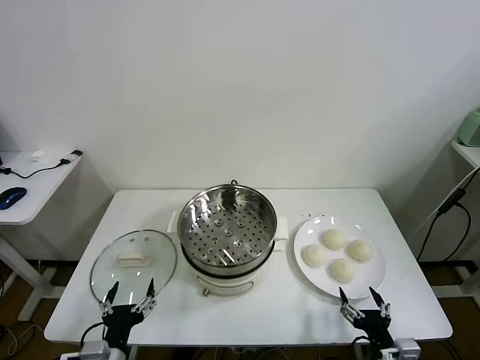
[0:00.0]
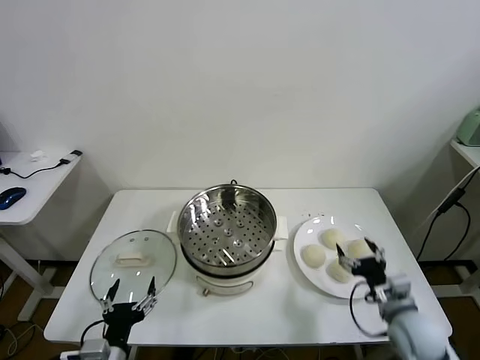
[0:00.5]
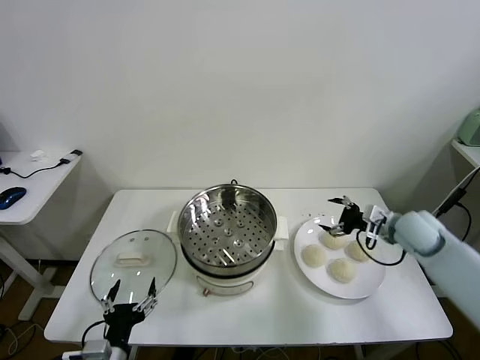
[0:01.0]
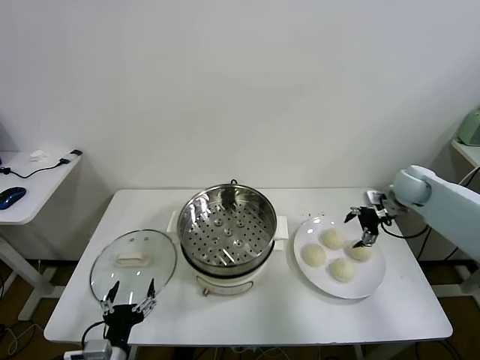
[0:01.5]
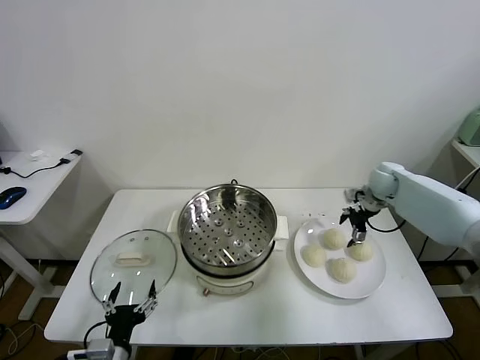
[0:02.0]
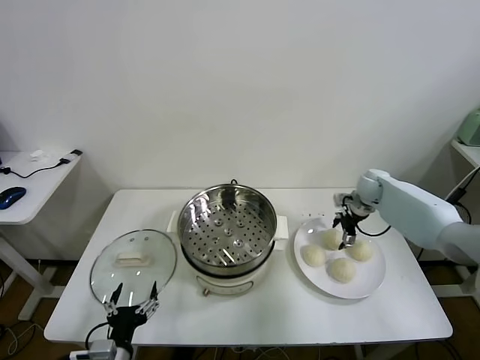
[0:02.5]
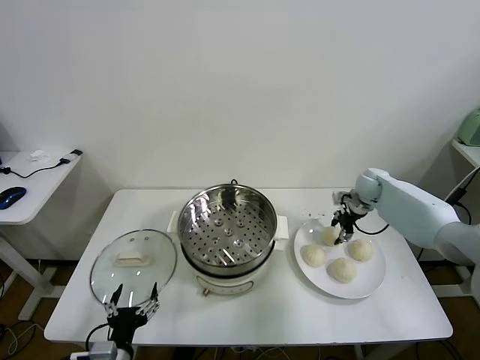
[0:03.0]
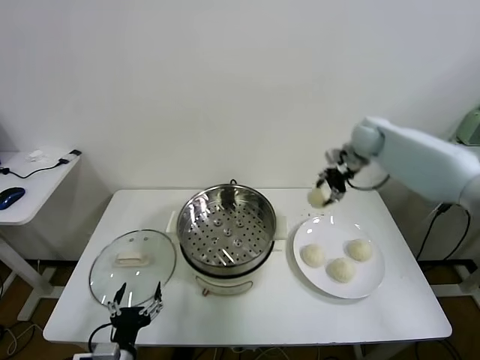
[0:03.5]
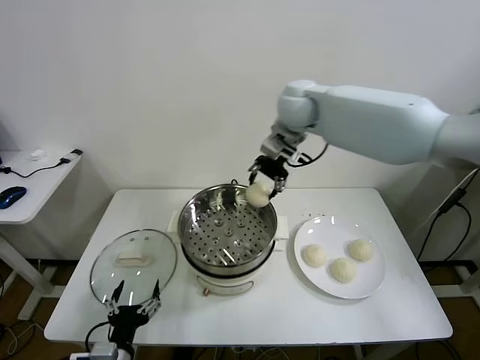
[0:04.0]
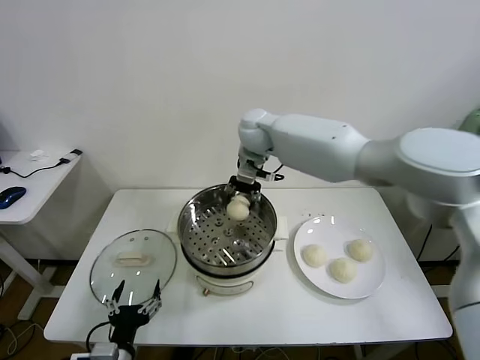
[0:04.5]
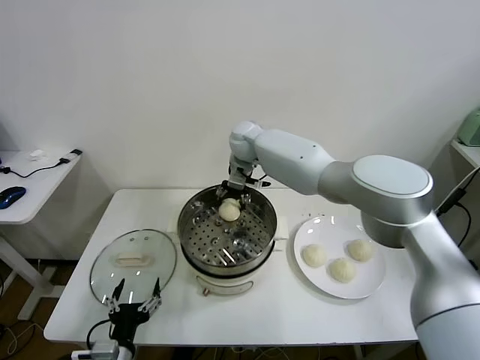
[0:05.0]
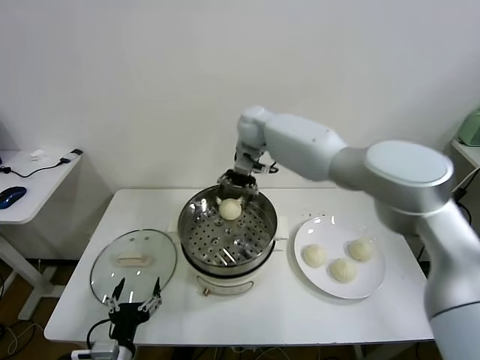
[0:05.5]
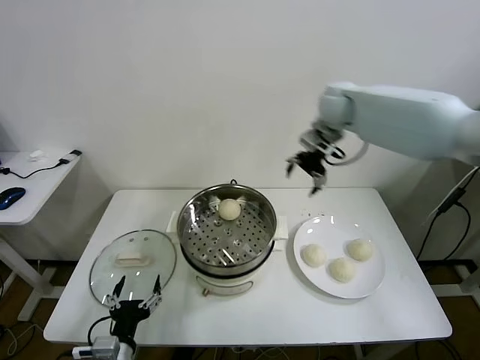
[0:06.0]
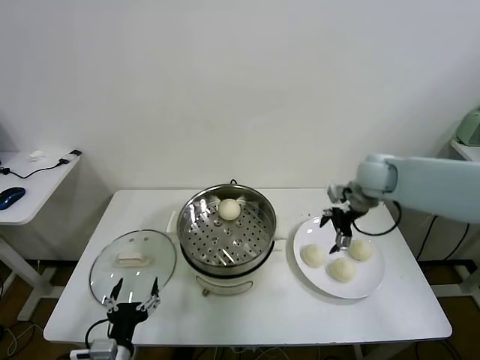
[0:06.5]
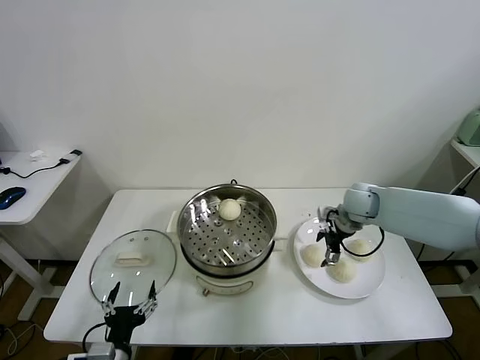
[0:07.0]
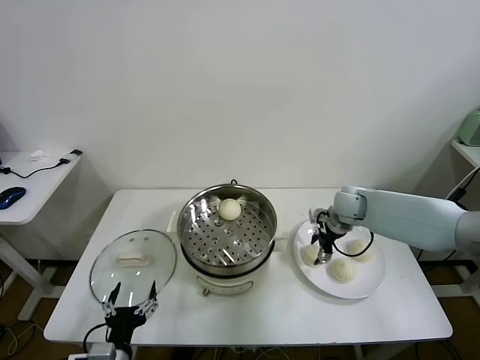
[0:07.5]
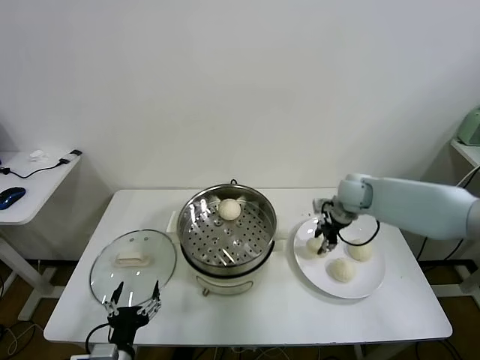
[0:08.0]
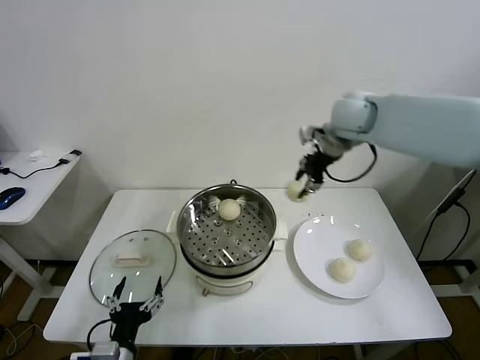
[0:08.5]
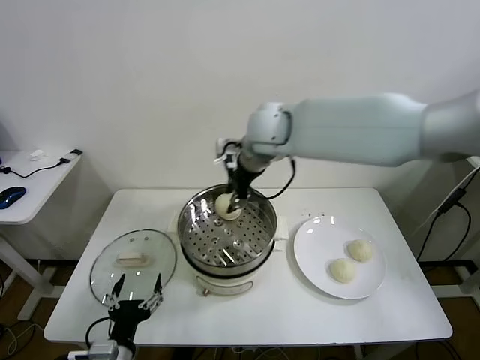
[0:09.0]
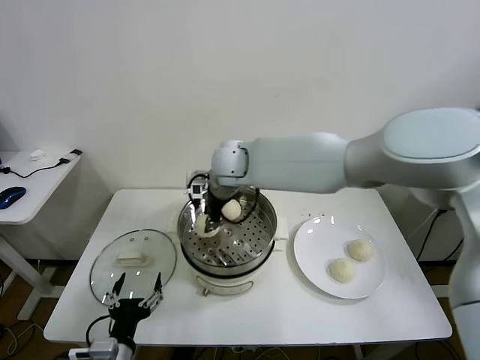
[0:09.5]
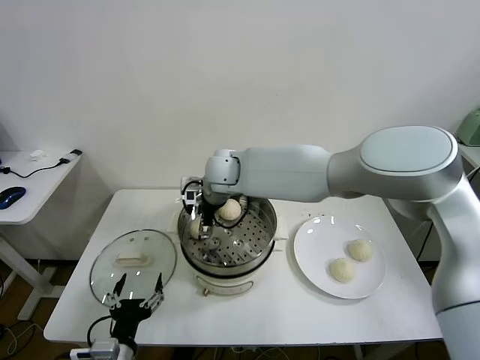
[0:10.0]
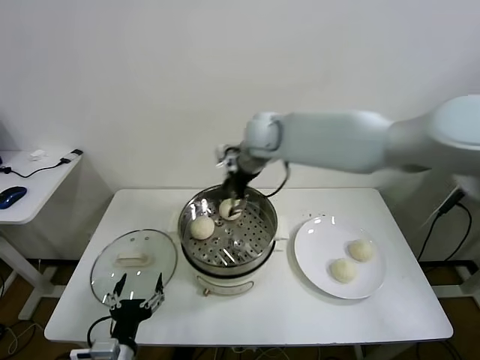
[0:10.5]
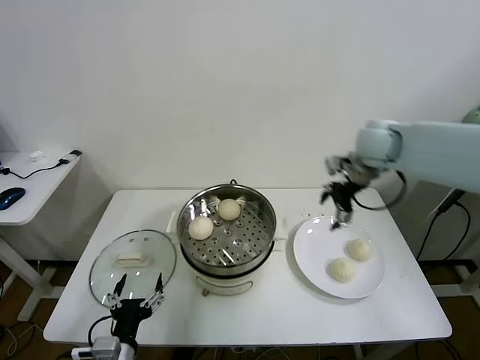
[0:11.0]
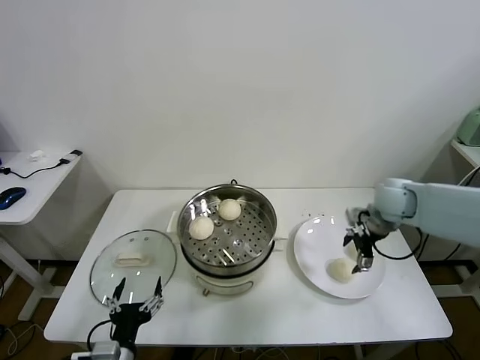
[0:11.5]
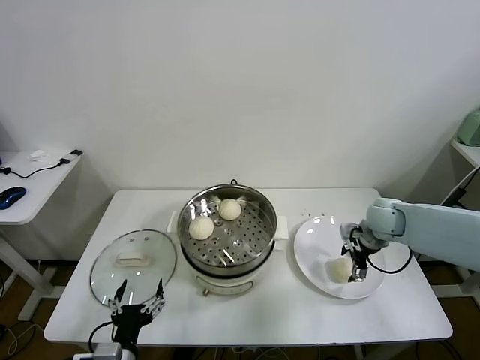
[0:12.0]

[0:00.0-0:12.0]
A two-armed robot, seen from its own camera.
Task of the whole recording: take steamed baozi put them in steamer.
Step, 0:00.0 to 0:02.5: Grasp the baozi in the plate with right gripper.
Step, 0:03.0 to 0:05.0: Place the baozi on the steamer with right gripper.
Step, 0:05.5 to 0:07.5: Grasp the baozi in the plate with right gripper.
Step, 0:08.0 to 0:09.5: Place the baozi on the steamer with right gripper.
0:02.0 to 0:04.0: The right gripper goes some 35 cm to the left and upward, and closes up.
0:04.0 to 0:06.0: The right gripper moves to the right, some 15 cm, and opens.
0:06.0 to 0:08.0: The right gripper shifts roughly 15 cm downward, and closes its fingers.
0:08.0 to 0:10.0: The right gripper heads to the left, covering approximately 30 cm, and opens its fingers.
0:10.0 to 0:12.0: The right gripper shifts some 40 cm to the right.

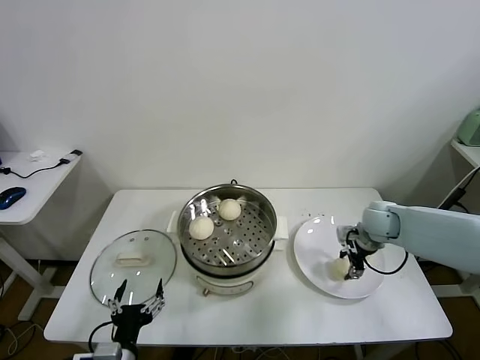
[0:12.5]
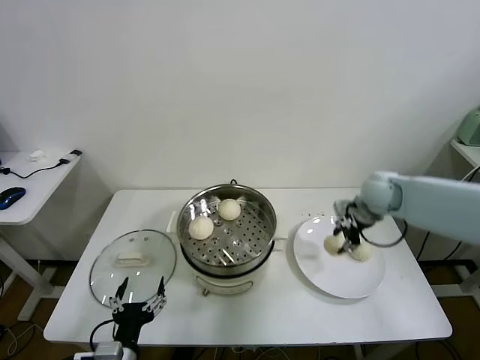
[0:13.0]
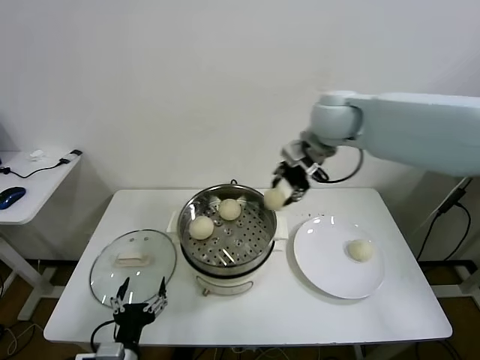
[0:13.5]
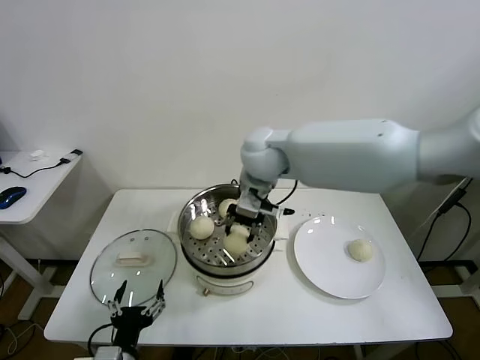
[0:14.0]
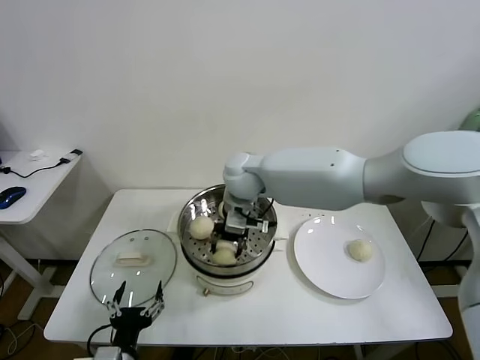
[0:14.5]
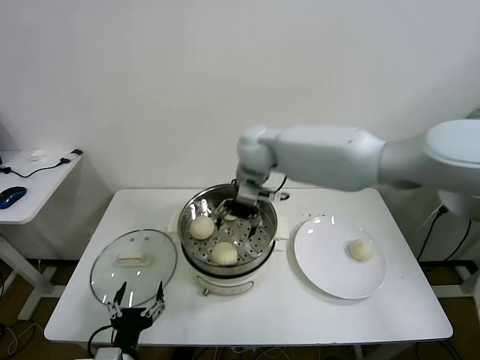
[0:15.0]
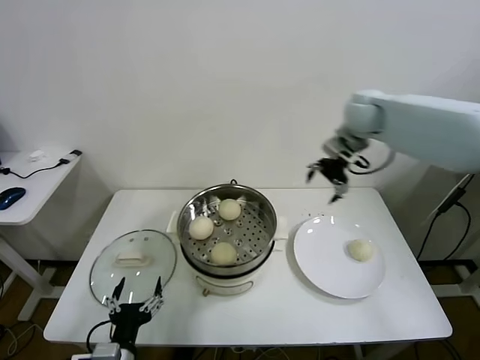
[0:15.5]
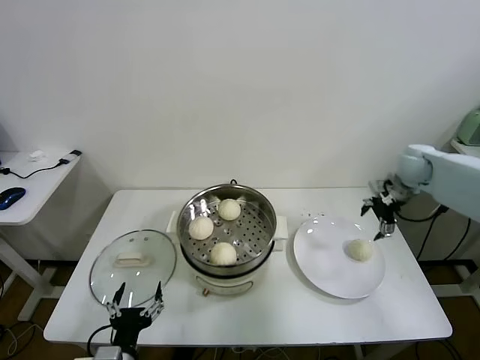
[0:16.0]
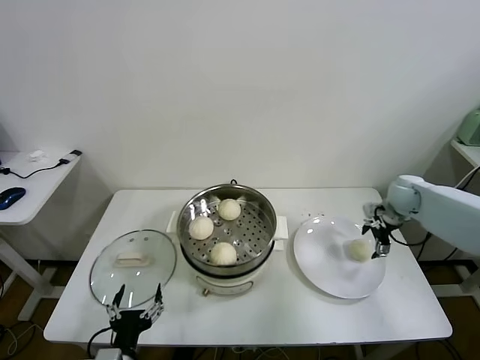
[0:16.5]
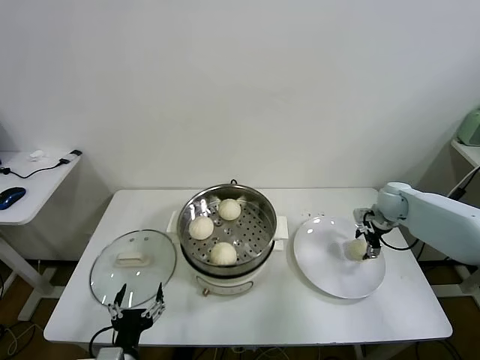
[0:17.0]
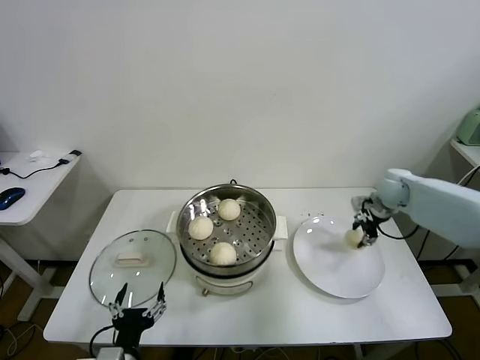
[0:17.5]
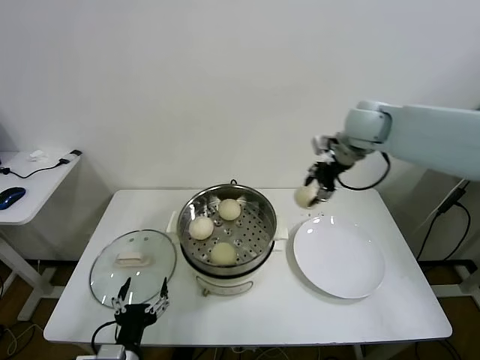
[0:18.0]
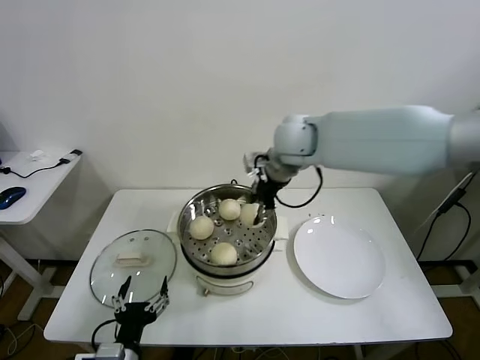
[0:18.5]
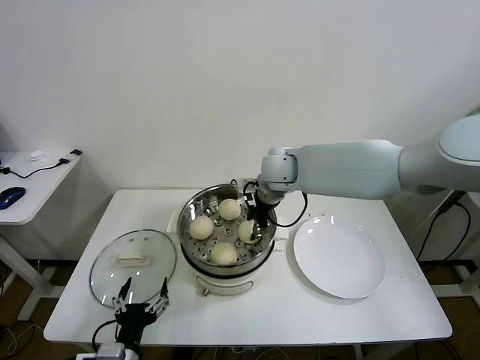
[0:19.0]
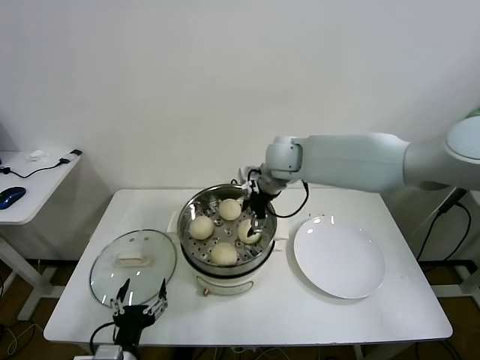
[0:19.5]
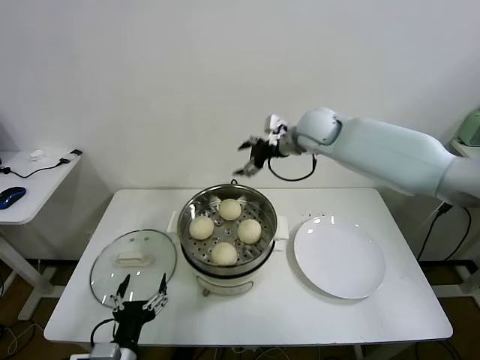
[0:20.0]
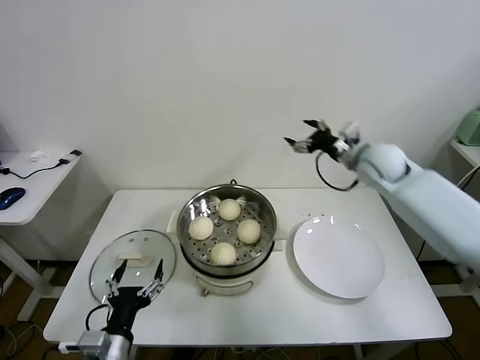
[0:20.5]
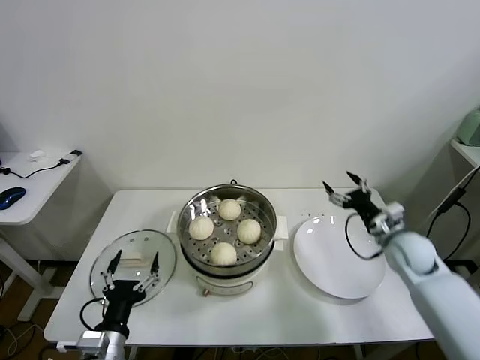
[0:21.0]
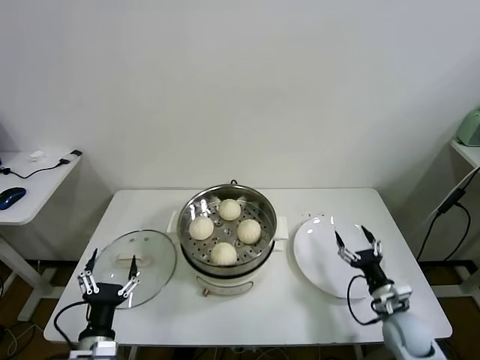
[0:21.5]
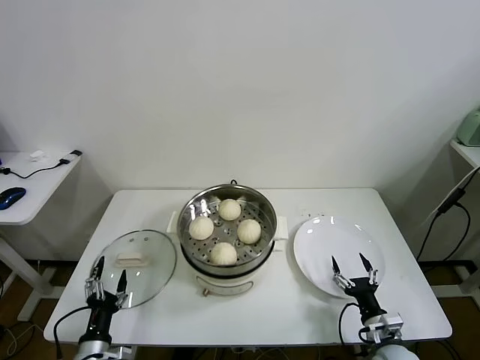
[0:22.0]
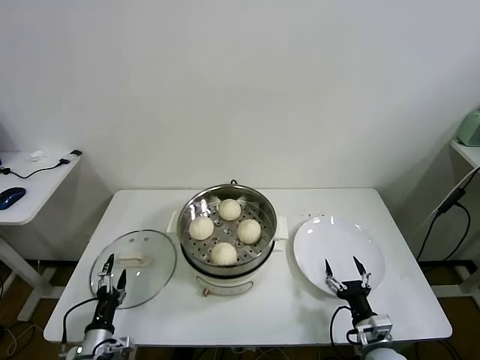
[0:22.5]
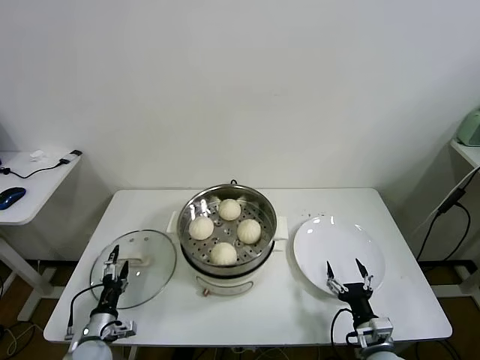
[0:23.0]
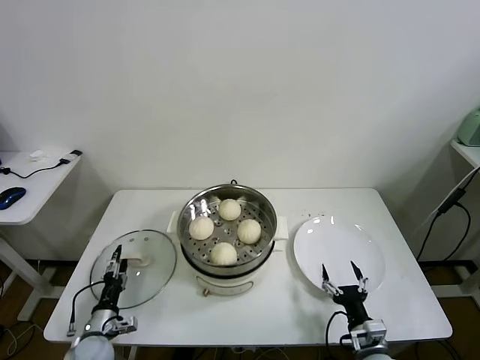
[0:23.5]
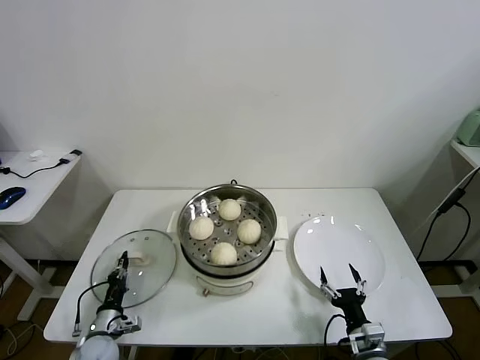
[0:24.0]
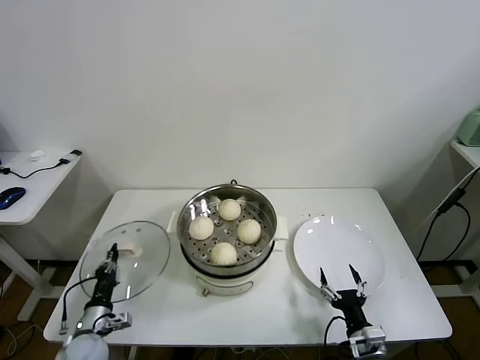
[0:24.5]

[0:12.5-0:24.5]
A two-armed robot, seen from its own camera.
Task of the whole recording: take steamed baozi put them in steamer.
Step, 0:13.0 to 0:14.5: Place the baozi on the steamer with right gripper.
Step, 0:15.0 to 0:17.0: Grasp the baozi in the plate with right gripper.
Step, 0:17.5 to 0:19.0: Place the baozi on the steamer with right gripper.
Step, 0:19.5 to 0:24.0: Grasp the pot lid with left gripper.
0:12.5 to 0:14.5: The right gripper travels to the left by approximately 35 cm.
0:14.5 to 0:16.5: The right gripper is displaced to the right by about 40 cm, and opens up.
0:16.5 to 0:18.5: The right gripper travels to the left and upward by approximately 35 cm, and closes its fingers.
0:18.5 to 0:20.5: The right gripper goes approximately 20 cm to the right, and opens its fingers.
0:20.5 to 0:22.5: The right gripper goes roughly 50 cm backward and downward. The left gripper is displaced downward and to the left by approximately 20 cm.
0:22.5 to 0:24.5: The left gripper travels forward by approximately 5 cm, and closes up.

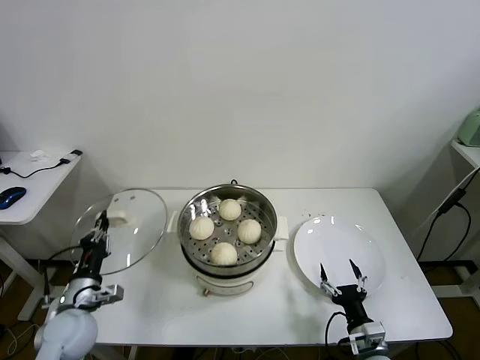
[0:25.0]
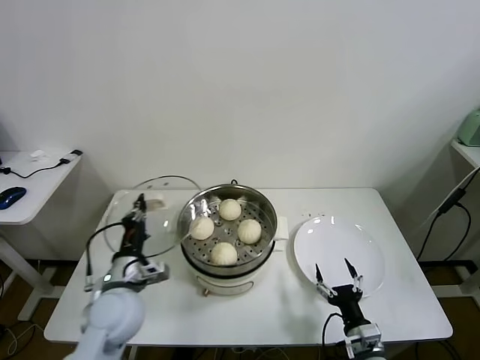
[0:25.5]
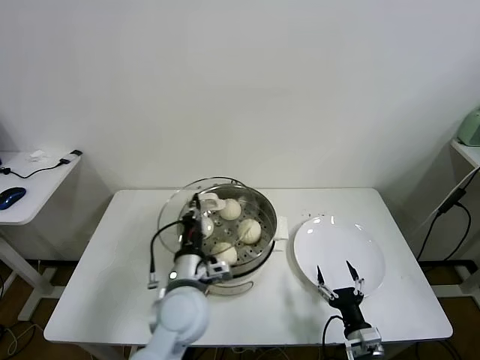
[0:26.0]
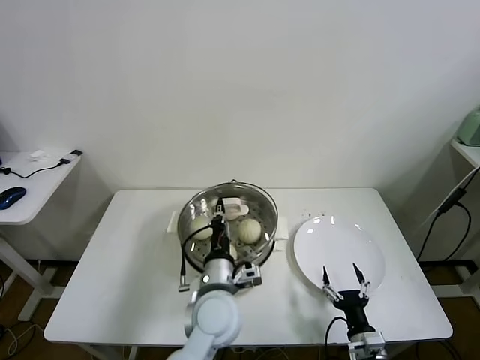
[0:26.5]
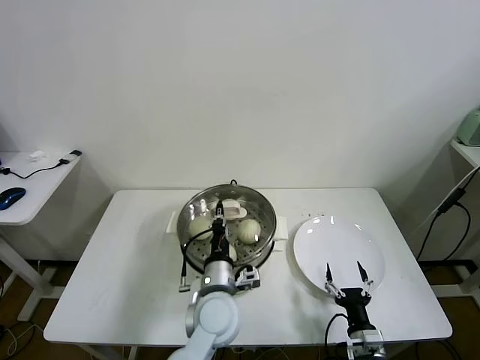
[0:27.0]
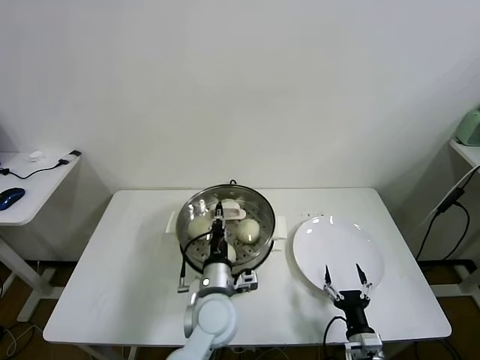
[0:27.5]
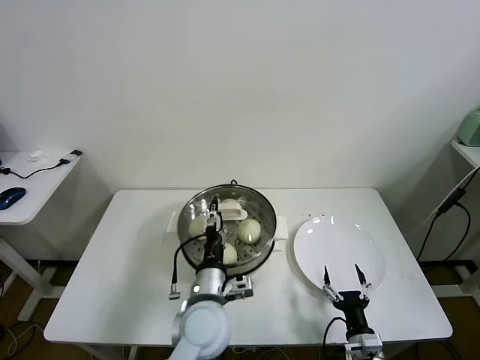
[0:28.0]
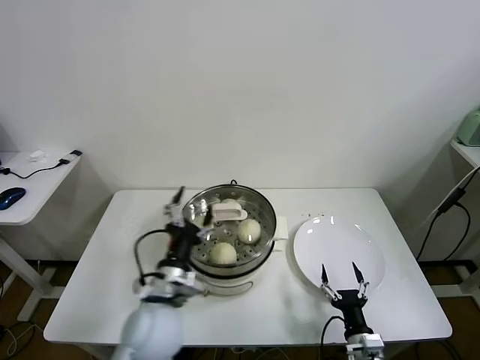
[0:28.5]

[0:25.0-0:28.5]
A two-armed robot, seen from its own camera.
Task of the whole recording: take steamed baozi put them in steamer.
Step, 0:25.0 to 0:27.5: Place the pot lid on the steamer with left gripper.
0:25.0 to 0:27.0: The left gripper moves to the right, roughly 30 cm.
0:27.0 to 0:28.5: The left gripper is displaced to the left by some 10 cm, and opens.
